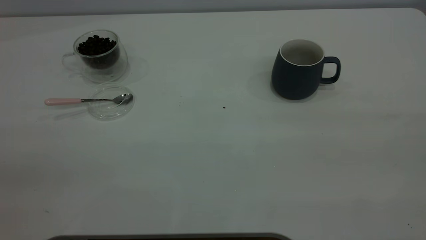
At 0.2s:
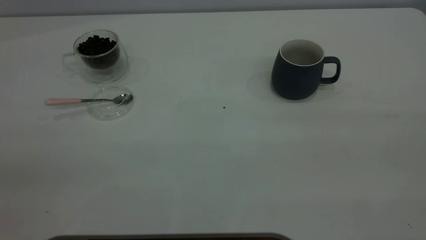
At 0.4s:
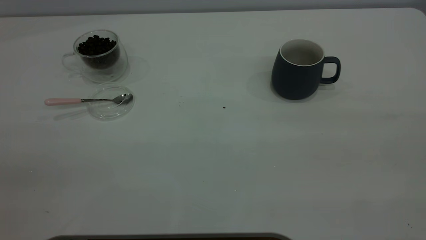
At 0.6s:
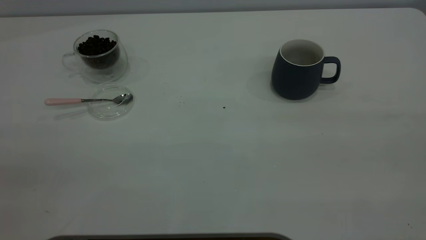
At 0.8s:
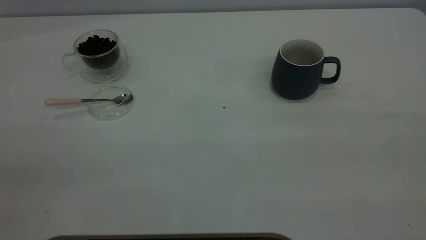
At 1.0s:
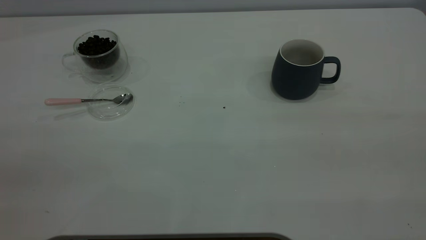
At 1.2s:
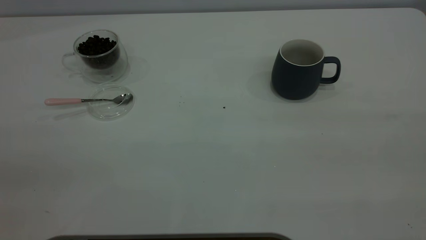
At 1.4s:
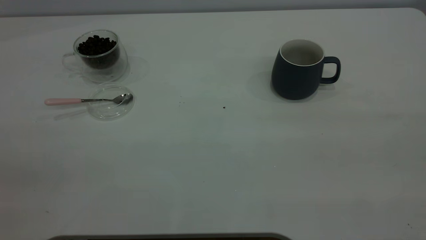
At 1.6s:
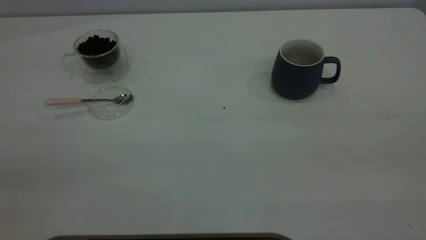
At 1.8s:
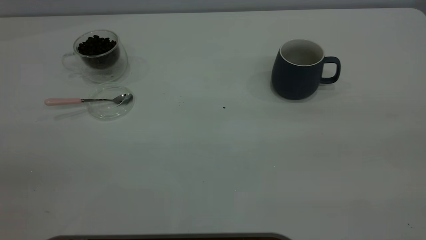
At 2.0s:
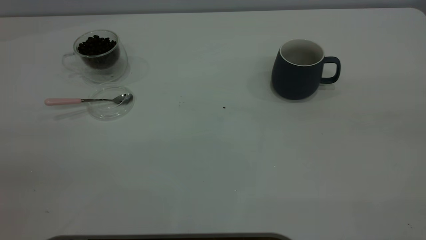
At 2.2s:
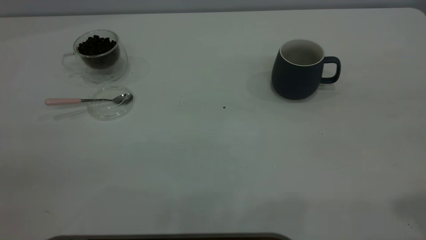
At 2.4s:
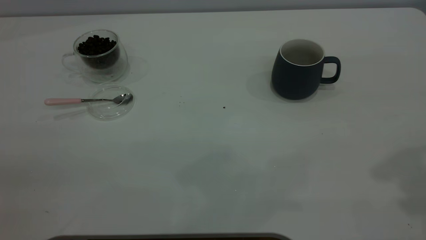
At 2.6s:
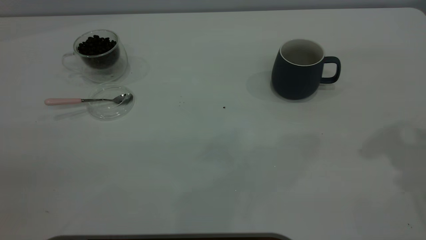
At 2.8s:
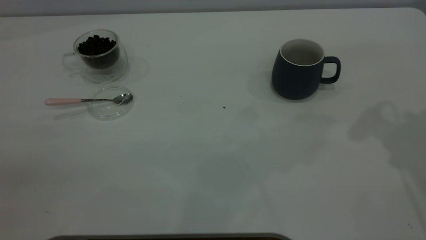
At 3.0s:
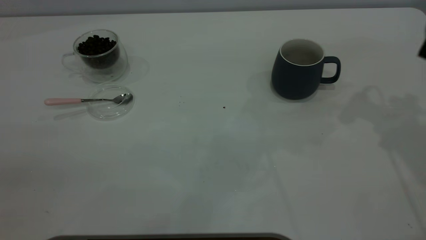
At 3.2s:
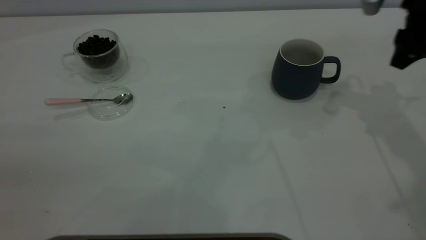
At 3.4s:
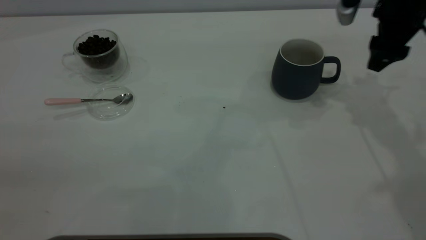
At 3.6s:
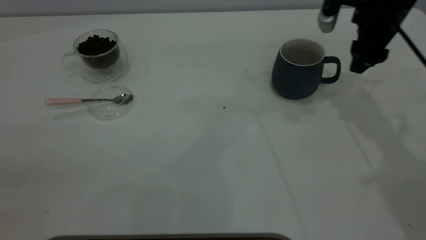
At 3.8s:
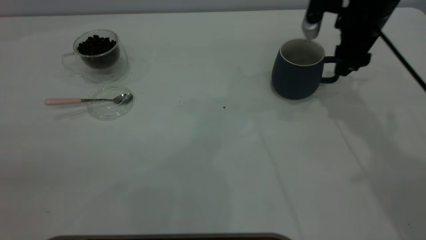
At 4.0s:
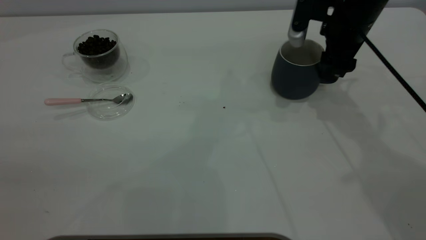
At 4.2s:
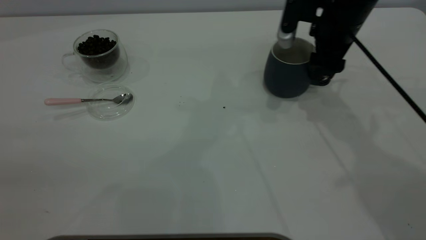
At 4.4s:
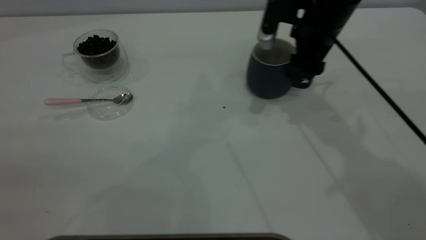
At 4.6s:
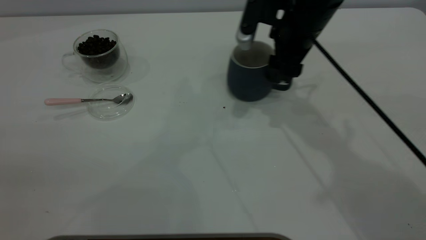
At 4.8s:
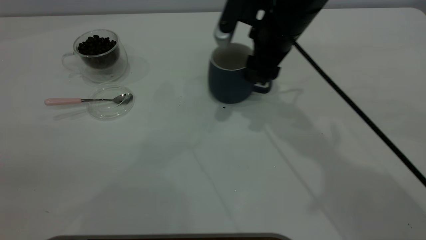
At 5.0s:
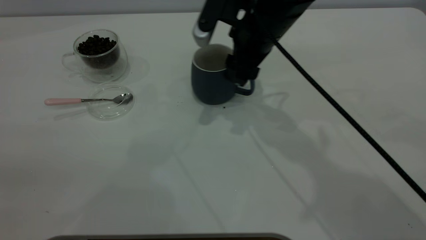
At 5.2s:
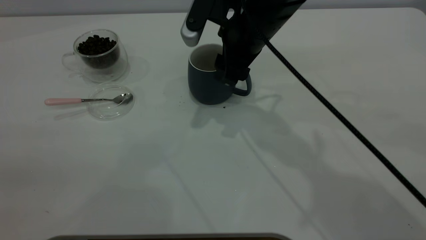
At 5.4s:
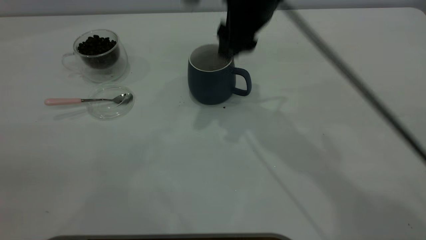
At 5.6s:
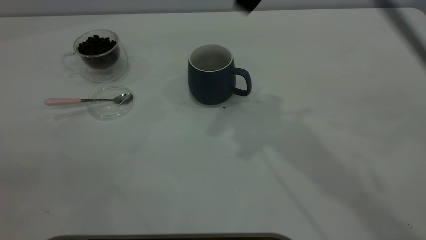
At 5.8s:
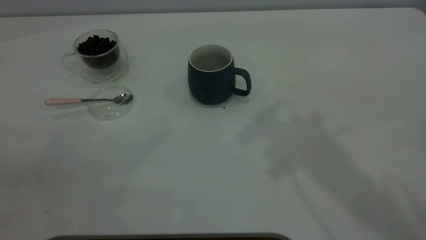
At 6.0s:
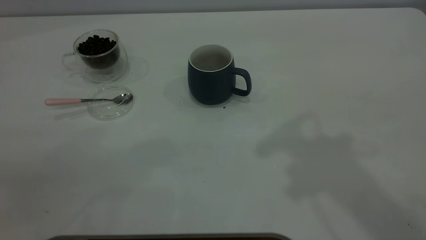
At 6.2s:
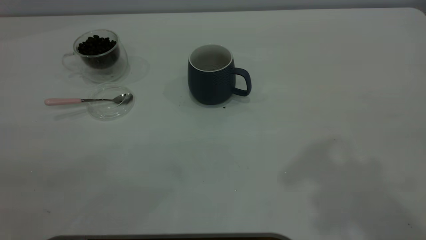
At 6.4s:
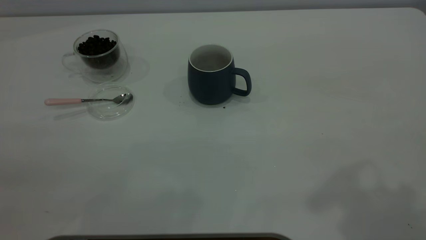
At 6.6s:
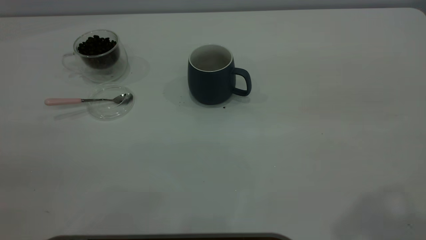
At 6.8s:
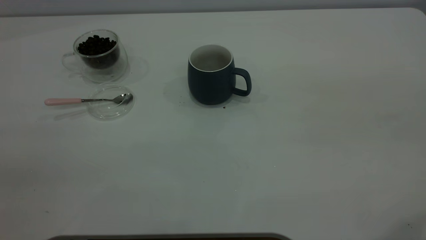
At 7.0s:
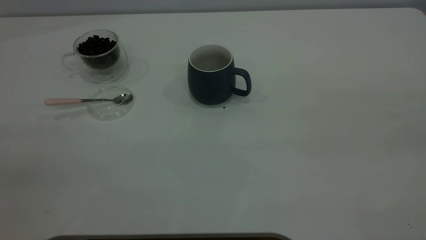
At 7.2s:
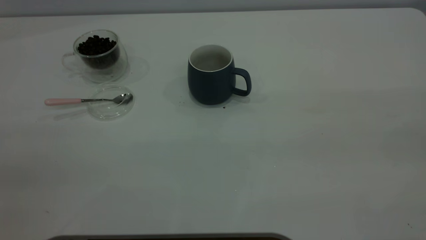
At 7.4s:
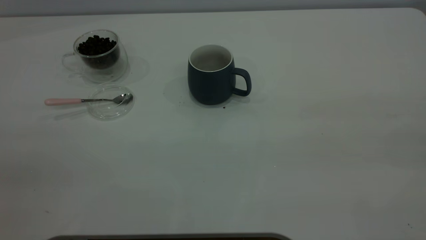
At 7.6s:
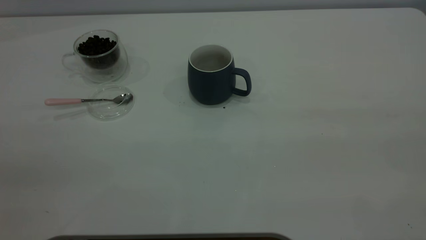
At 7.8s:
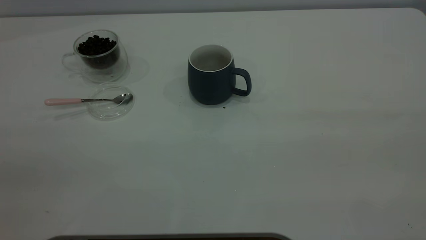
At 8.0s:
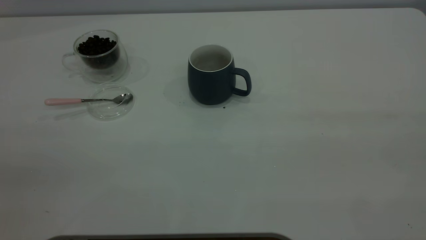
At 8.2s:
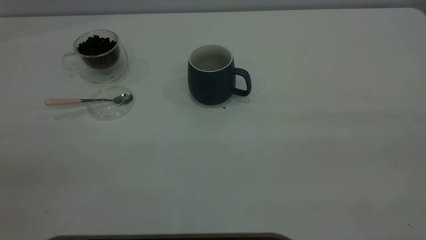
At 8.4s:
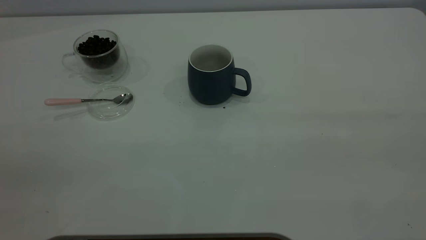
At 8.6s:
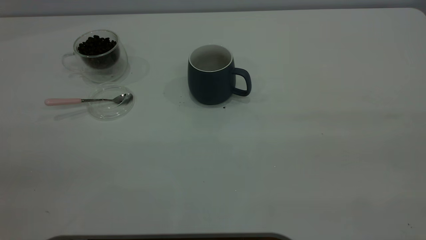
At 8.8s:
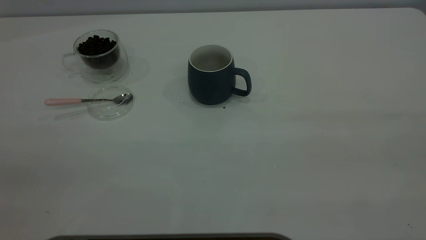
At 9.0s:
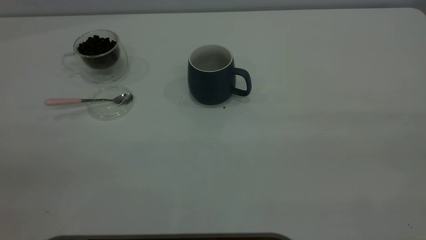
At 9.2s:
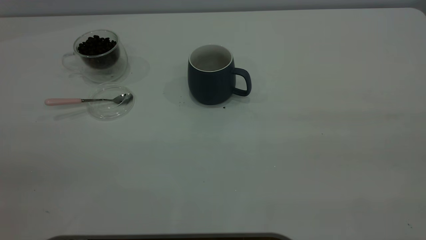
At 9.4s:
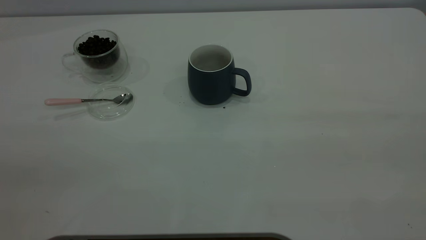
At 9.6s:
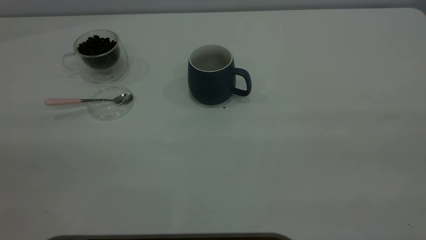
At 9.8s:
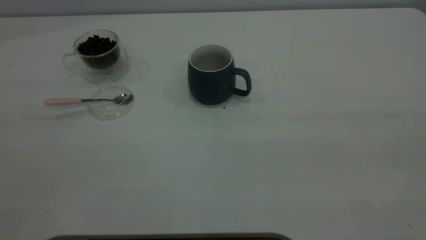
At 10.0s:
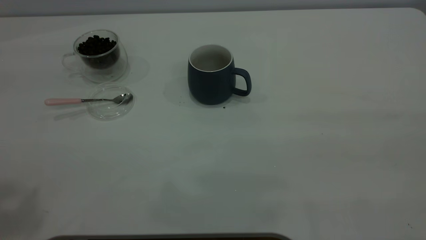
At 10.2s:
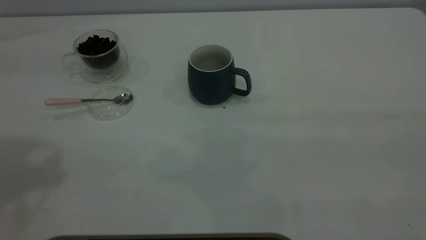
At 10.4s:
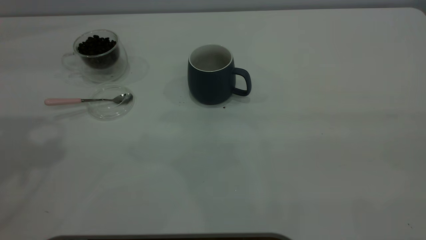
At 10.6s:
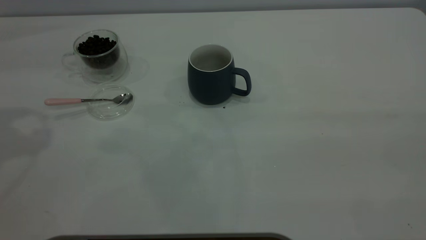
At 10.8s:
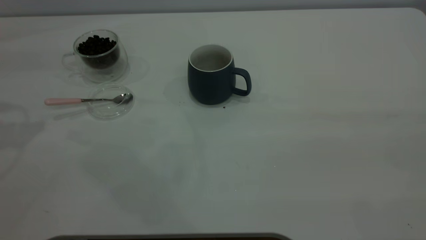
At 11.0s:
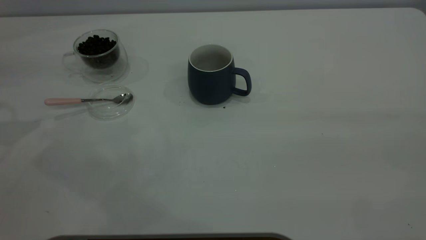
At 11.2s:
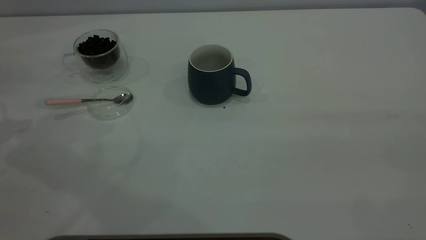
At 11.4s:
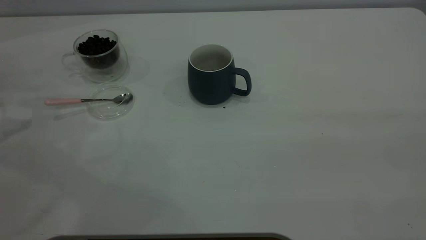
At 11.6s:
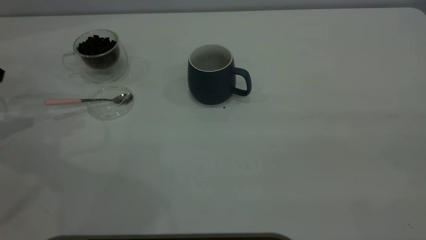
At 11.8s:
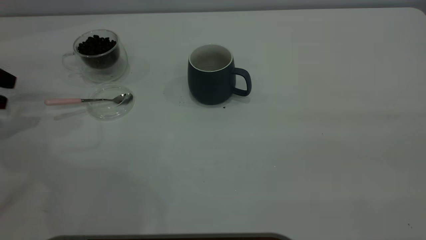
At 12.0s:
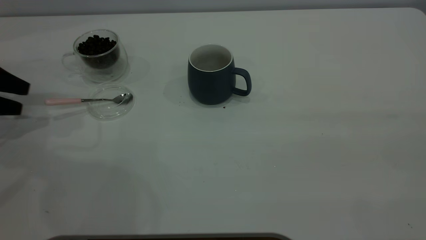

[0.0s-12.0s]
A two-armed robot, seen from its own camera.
Task of the whole recording: the right gripper place the grey cup in the center of the table, the left gripper take the pink spoon from the cup lid and scoop out the coffee beans from the coffee cup and put them into the grey cup, the left gripper put the spoon back into the cup lid.
Step, 0.0s to 5.2s: Move the cup to the center of view.
0.0s to 1.6s: Neither gripper changes place.
3.0s to 4.4s: The right gripper shifts roughly 15 cm to the left and downward.
4.4s to 6.0s: The right gripper travels upward and backward by about 35 cm.
10.4s to 12.0s: The left gripper is displaced downward and to the left by roughly 30 cm.

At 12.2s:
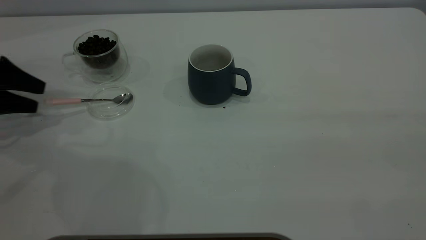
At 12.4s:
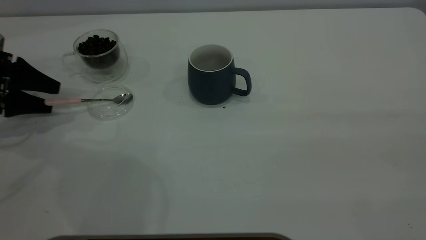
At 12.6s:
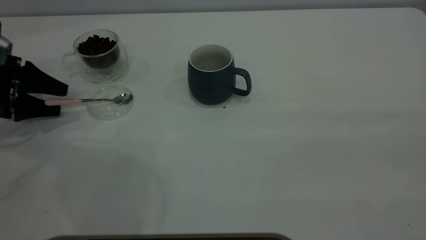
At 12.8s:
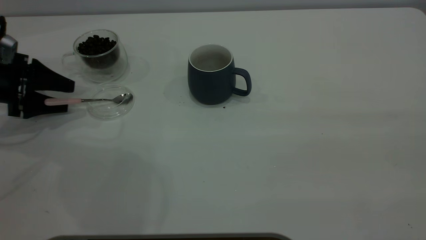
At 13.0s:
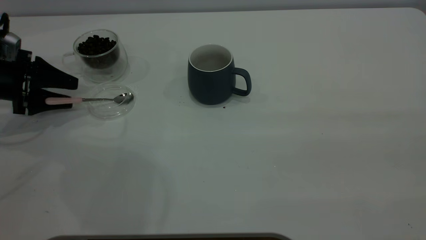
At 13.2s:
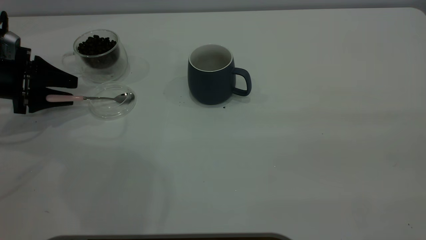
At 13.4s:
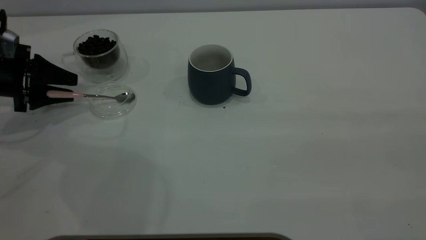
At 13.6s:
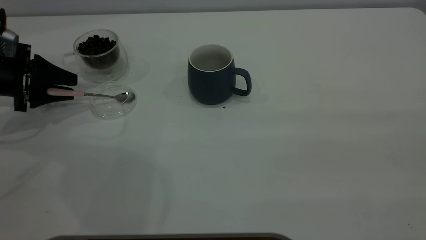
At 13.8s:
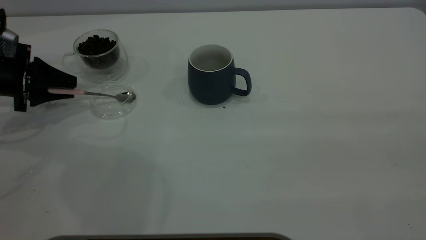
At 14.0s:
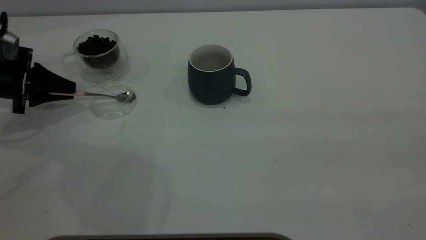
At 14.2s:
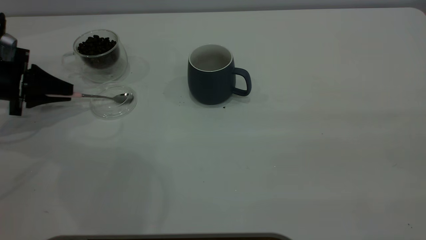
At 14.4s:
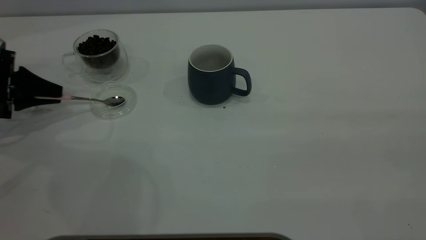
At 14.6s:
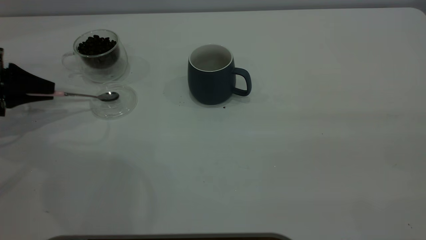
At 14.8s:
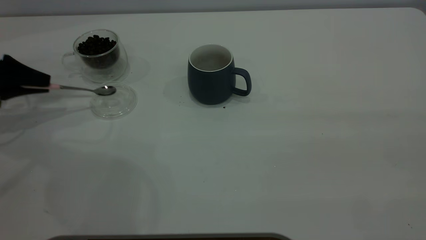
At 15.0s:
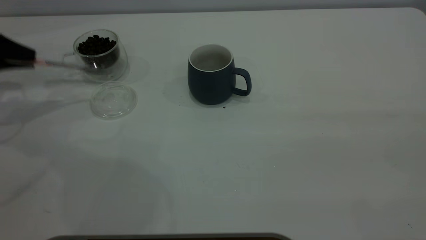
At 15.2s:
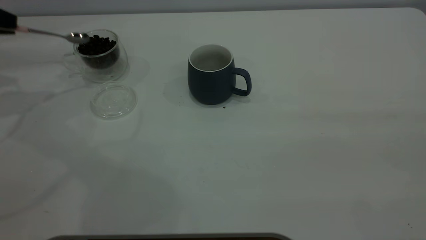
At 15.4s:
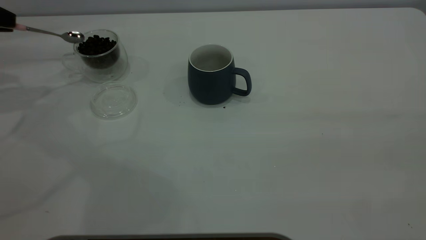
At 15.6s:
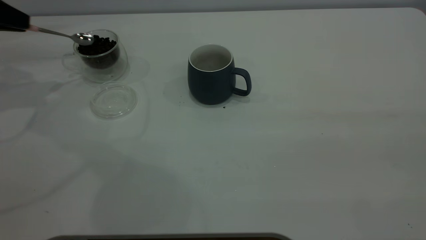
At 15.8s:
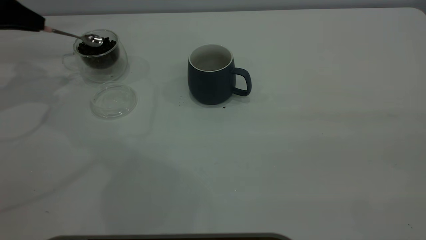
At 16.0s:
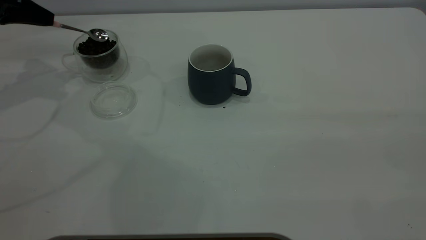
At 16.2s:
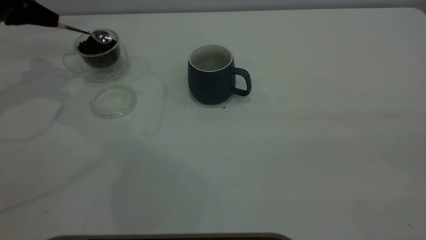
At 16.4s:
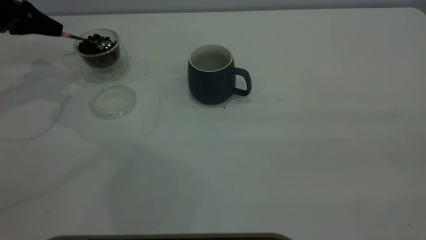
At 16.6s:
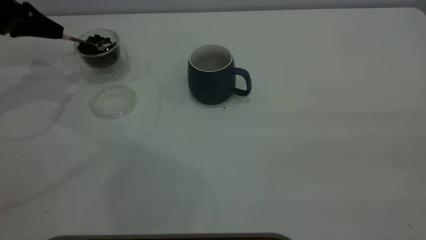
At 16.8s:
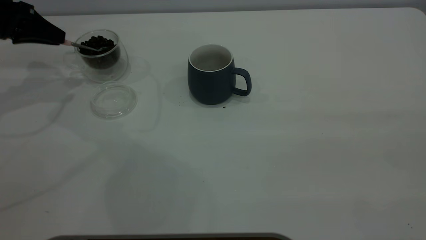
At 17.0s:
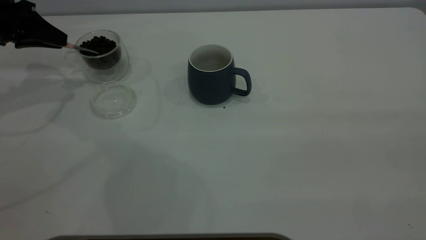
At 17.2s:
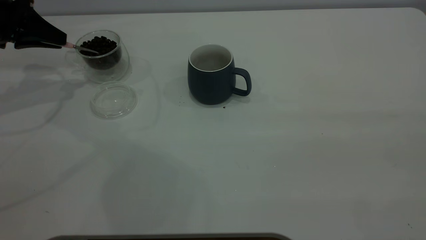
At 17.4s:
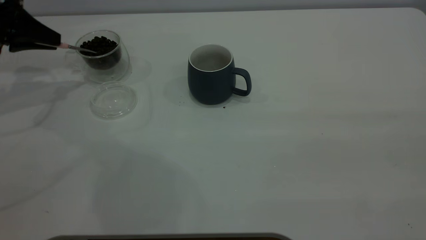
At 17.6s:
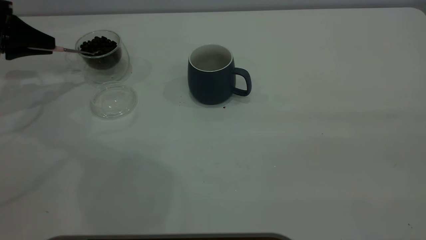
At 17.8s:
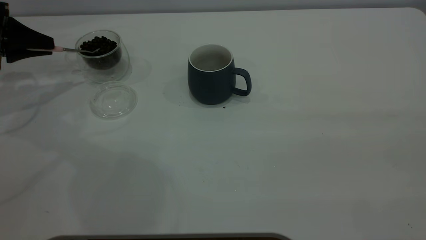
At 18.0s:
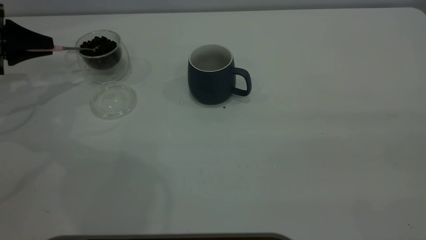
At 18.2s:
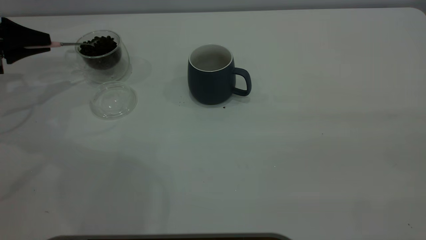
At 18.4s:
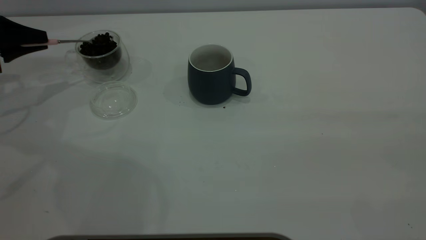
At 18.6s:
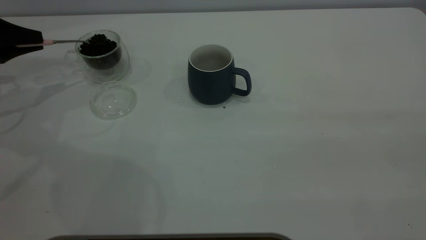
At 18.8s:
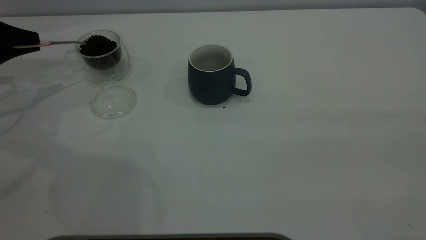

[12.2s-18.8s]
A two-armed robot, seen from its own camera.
Task of the whole recording: the right gripper place the grey cup in the center of the table, the left gripper take the pink spoon from the cup lid and scoop out the coffee beans from the coffee cup and put them into the grey cup, the left gripper put the spoon back into the cup lid.
Step, 12.2s to 15.0s: Pick up the spoon.
12.2s to 13.8s: The left gripper closes up.
13.8s to 15.4s: The left gripper moves upward, some 15 cm.
15.4s to 17.2s: The left gripper heads to the right, covering approximately 5 cm.
17.2s to 18.8s: The left gripper is displaced to the left by roughly 5 cm.
